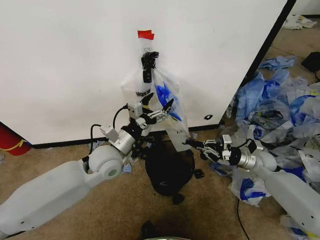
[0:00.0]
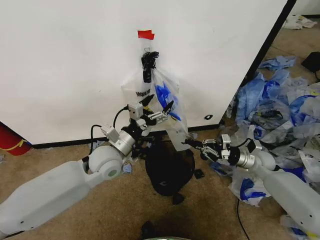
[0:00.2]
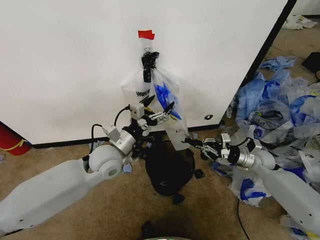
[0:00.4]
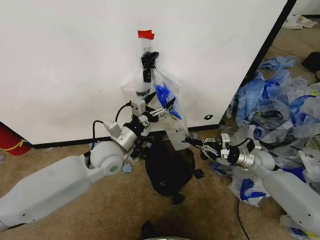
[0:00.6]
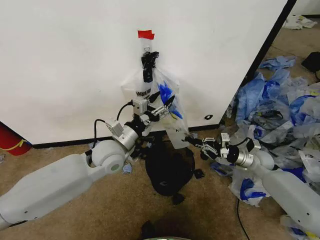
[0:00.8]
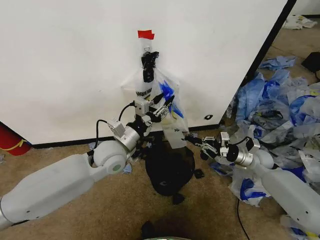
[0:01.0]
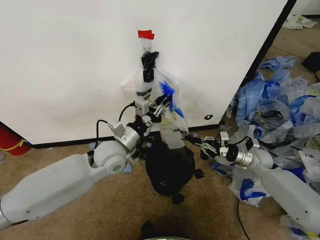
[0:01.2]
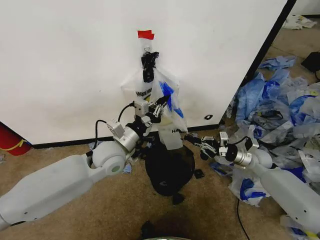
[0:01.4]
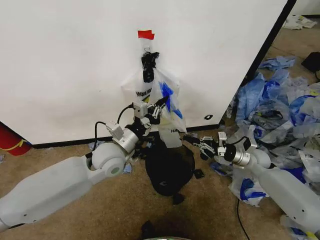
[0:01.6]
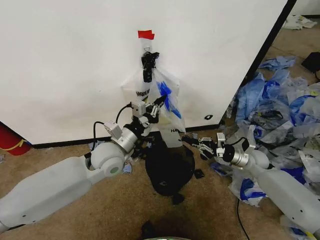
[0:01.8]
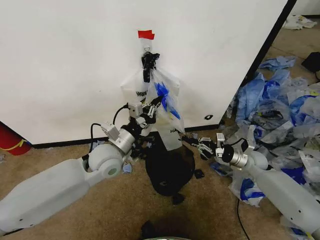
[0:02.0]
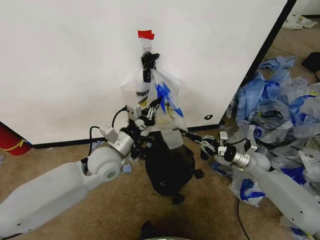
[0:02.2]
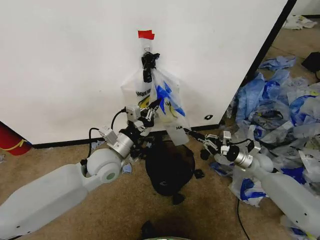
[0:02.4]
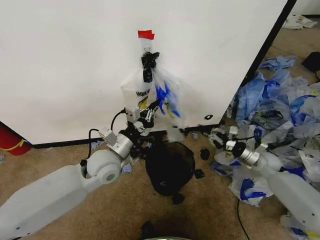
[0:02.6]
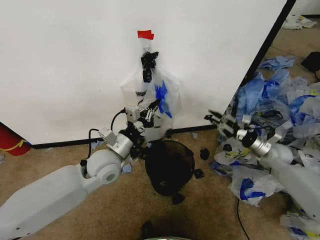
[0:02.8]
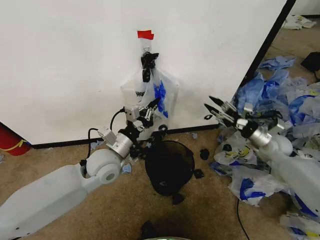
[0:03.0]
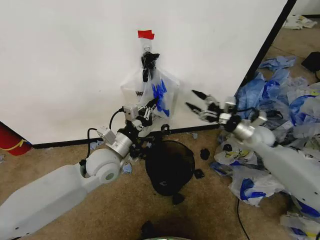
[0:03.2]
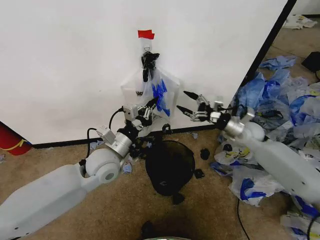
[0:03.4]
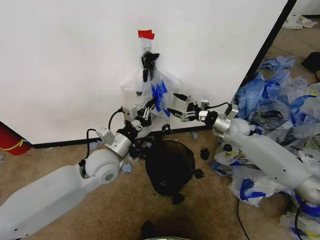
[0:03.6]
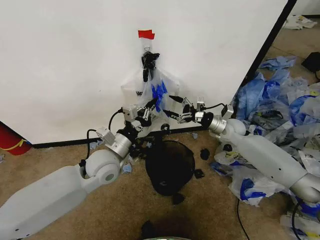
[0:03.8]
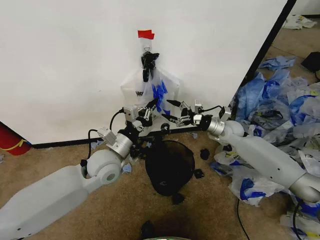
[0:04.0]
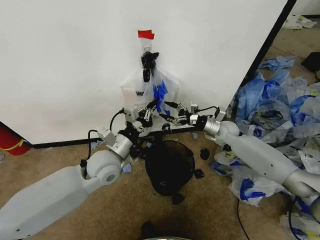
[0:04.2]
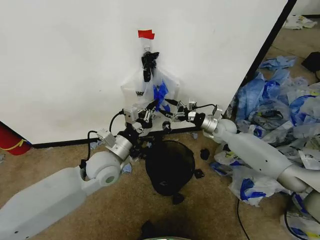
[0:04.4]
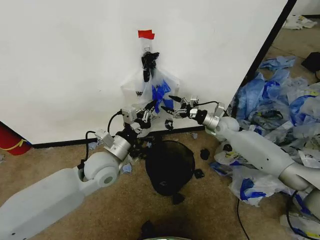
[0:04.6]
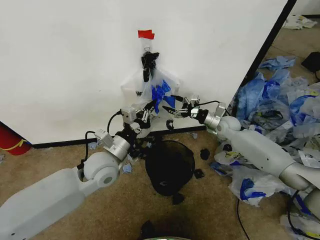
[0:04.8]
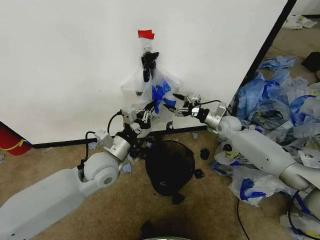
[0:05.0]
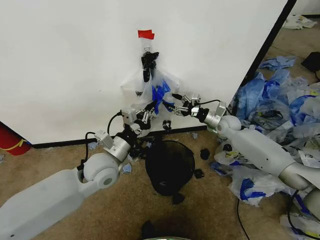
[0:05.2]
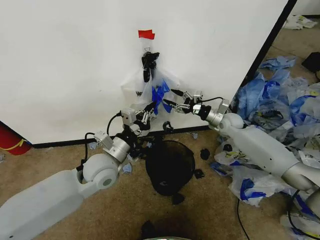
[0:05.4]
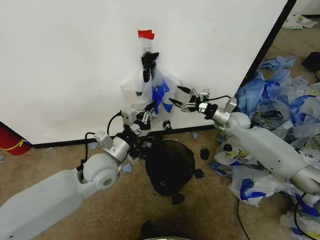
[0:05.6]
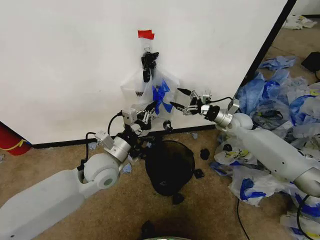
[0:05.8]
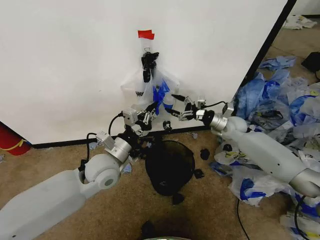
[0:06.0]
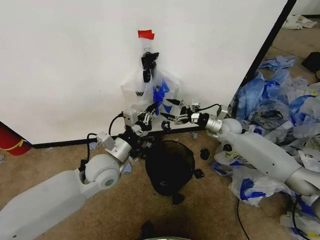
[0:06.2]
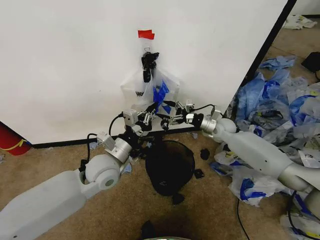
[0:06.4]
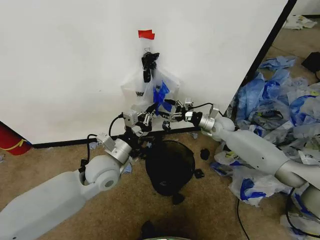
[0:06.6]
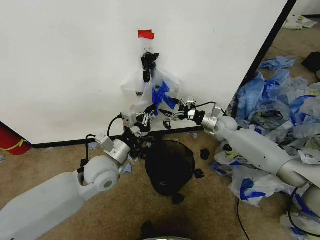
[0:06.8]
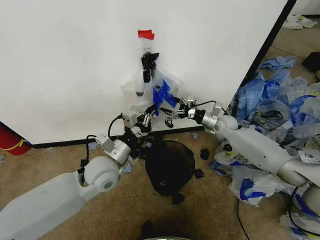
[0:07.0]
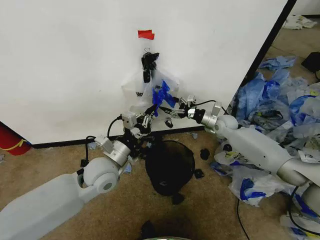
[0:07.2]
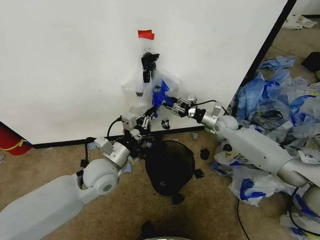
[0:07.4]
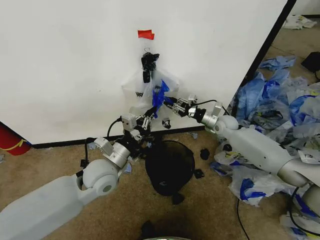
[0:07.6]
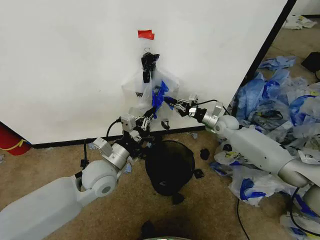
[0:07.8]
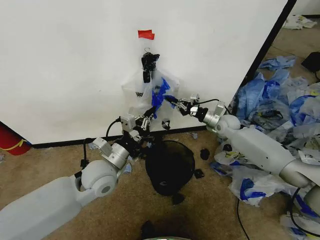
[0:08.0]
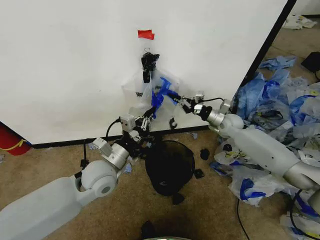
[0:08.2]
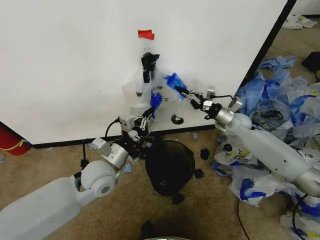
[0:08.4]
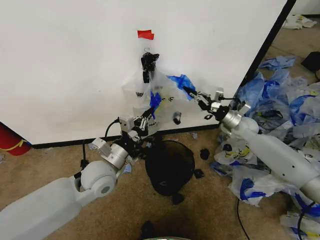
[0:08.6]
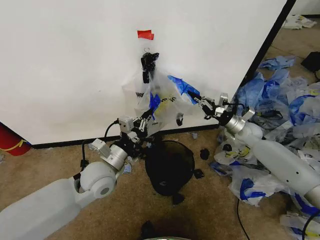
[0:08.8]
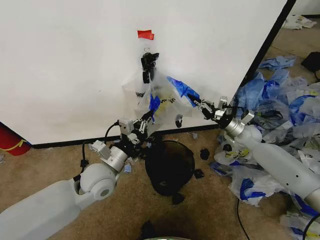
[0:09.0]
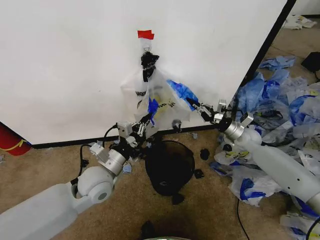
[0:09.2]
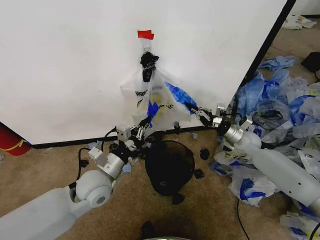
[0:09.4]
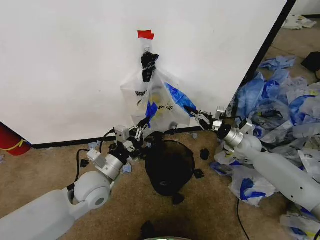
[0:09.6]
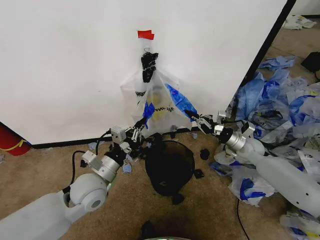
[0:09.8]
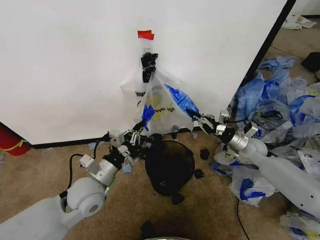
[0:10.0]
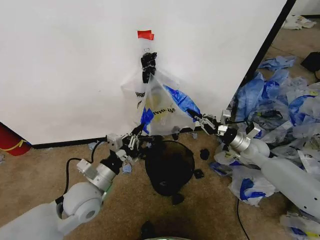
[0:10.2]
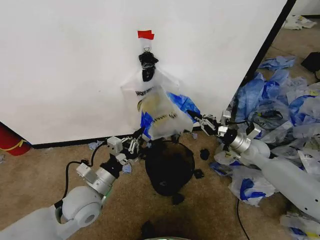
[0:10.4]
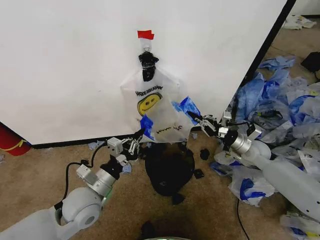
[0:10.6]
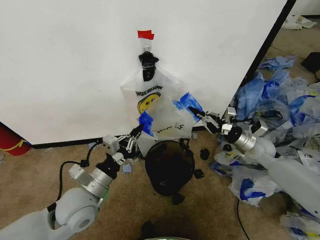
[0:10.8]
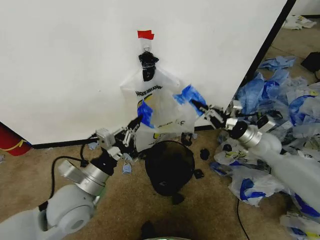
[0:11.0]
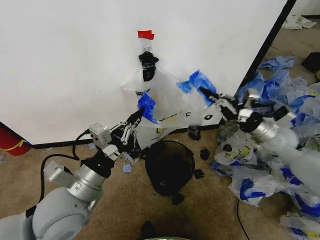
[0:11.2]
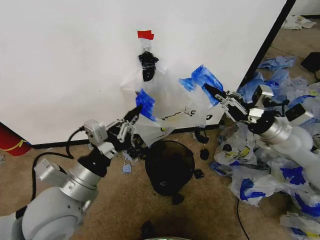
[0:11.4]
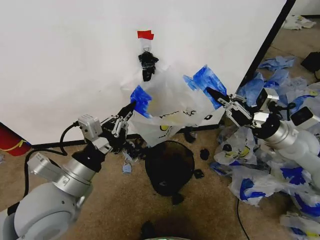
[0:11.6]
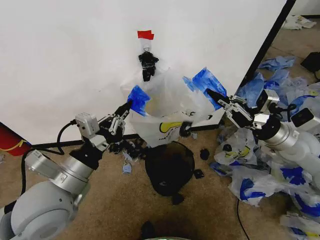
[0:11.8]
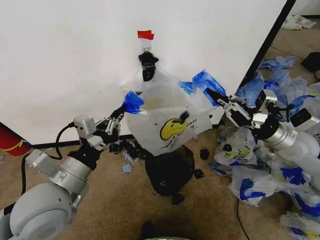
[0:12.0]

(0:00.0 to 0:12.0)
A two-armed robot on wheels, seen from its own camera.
Task of the whole recording: Pick up the garbage bag from the wall and place it over the trash bin.
0:00.0 - 0:01.6: The left gripper closes.
0:01.6 - 0:03.0: The right gripper travels upward by some 10 cm, and opens up.
0:03.0 - 0:04.4: The right gripper travels to the left and forward by approximately 15 cm, and opens.
0:04.4 - 0:06.0: There are only small adjustments of the grippers.
0:06.0 - 0:07.6: The right gripper closes.
0:07.6 - 0:09.0: The right gripper goes some 10 cm to the right and backward.
0:09.0 - 0:10.4: The grippers both shift backward by roughly 5 cm.
0:10.4 - 0:12.0: Both grippers travel together upward and backward, approximately 15 cm.

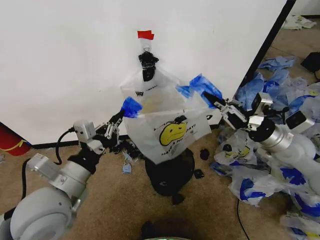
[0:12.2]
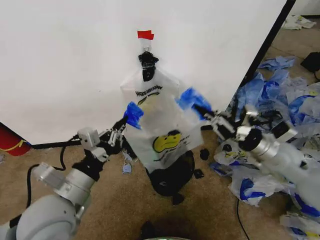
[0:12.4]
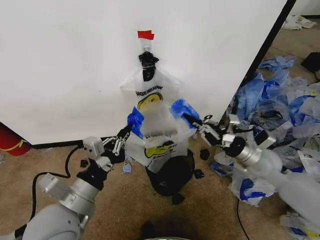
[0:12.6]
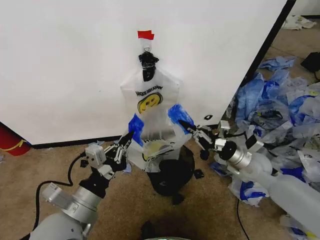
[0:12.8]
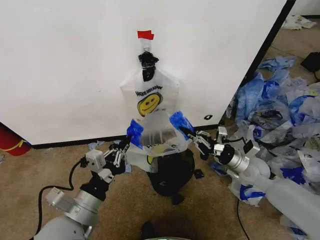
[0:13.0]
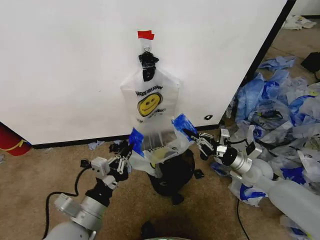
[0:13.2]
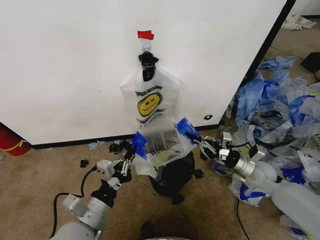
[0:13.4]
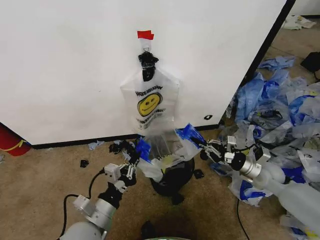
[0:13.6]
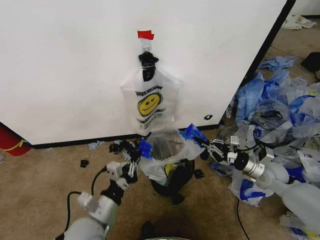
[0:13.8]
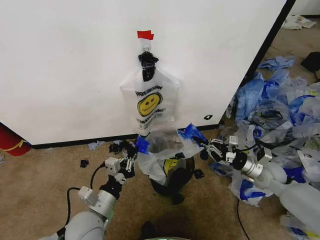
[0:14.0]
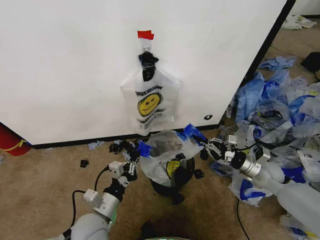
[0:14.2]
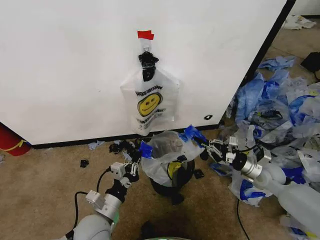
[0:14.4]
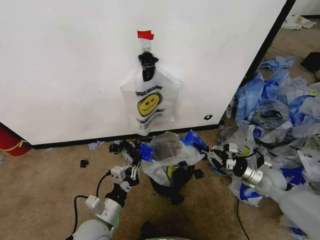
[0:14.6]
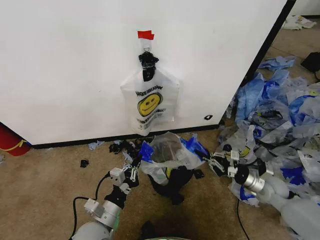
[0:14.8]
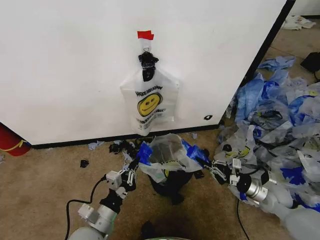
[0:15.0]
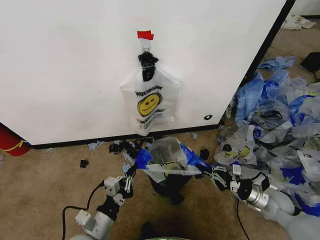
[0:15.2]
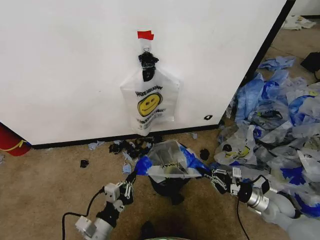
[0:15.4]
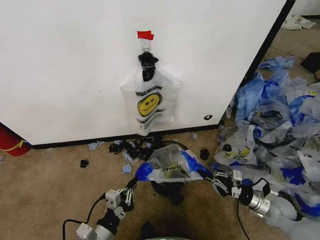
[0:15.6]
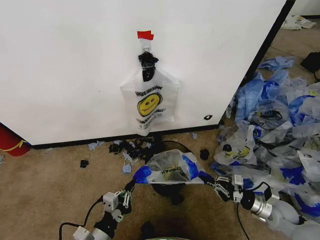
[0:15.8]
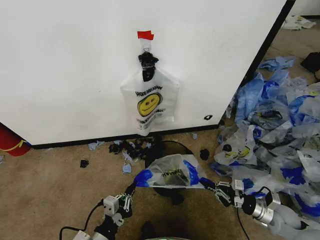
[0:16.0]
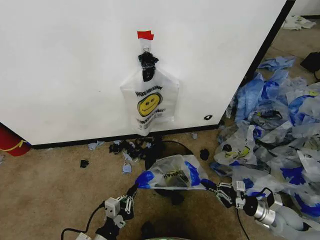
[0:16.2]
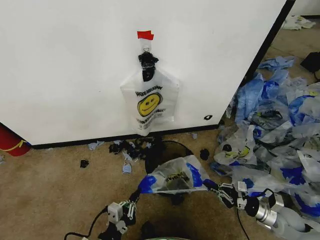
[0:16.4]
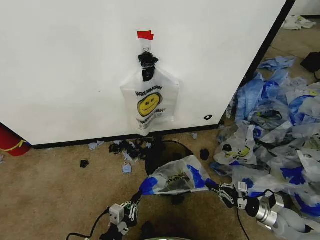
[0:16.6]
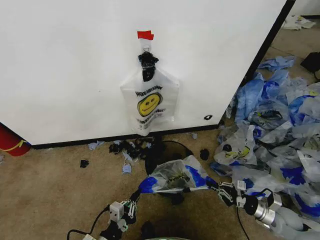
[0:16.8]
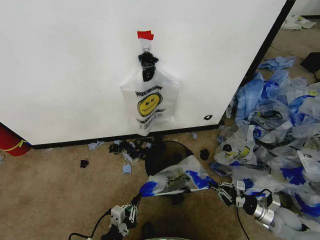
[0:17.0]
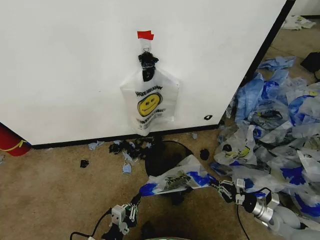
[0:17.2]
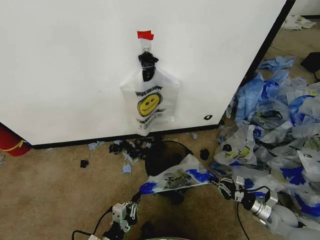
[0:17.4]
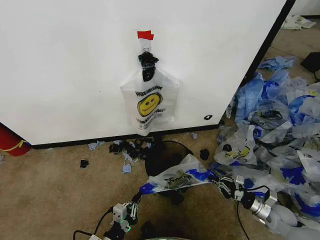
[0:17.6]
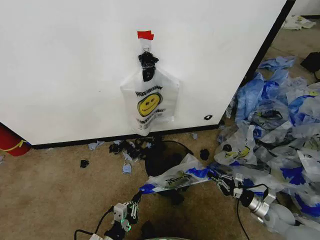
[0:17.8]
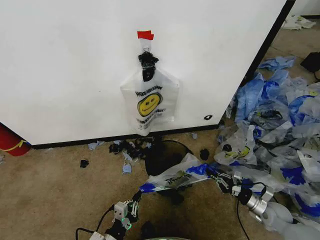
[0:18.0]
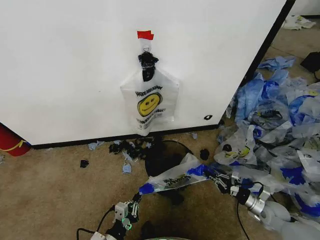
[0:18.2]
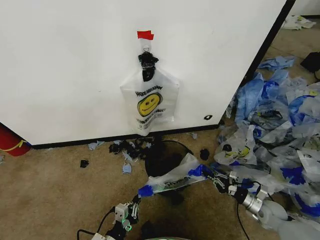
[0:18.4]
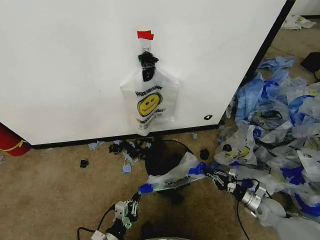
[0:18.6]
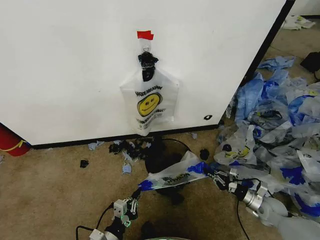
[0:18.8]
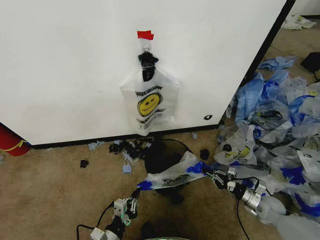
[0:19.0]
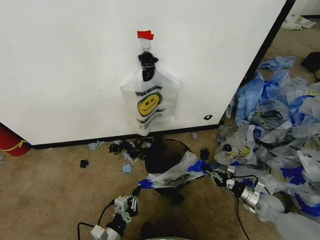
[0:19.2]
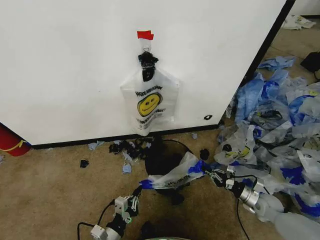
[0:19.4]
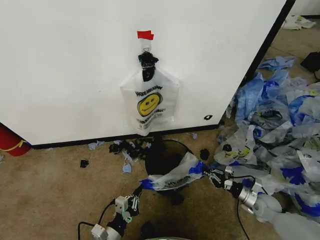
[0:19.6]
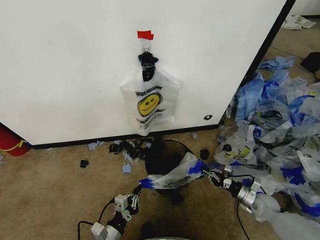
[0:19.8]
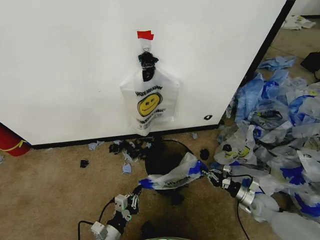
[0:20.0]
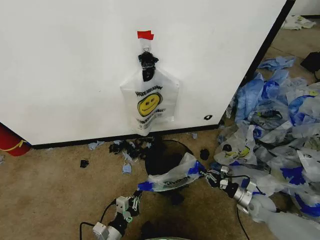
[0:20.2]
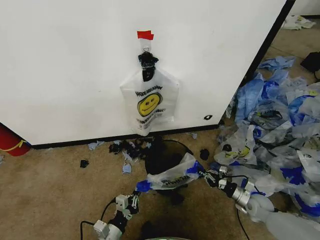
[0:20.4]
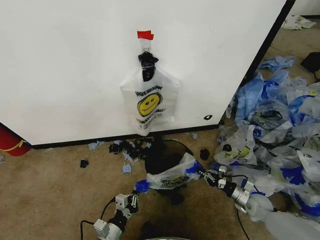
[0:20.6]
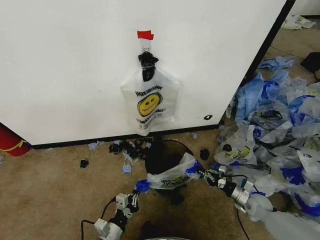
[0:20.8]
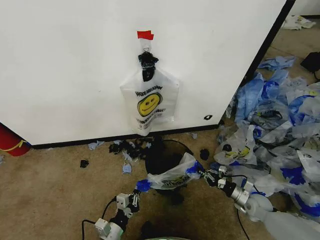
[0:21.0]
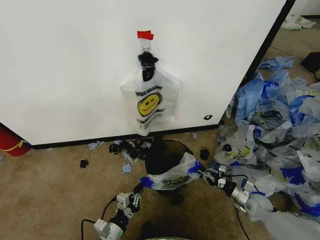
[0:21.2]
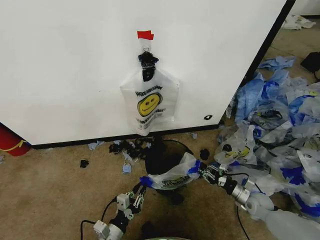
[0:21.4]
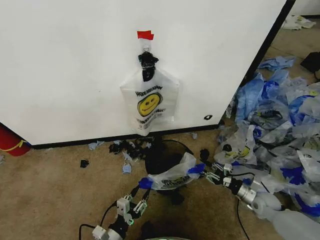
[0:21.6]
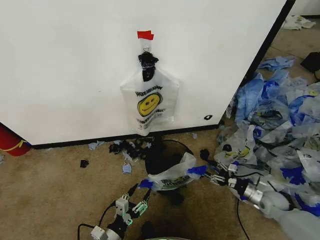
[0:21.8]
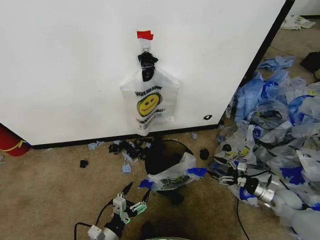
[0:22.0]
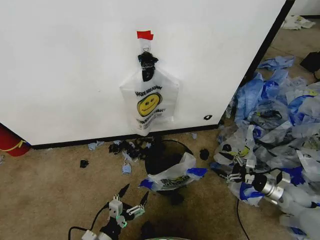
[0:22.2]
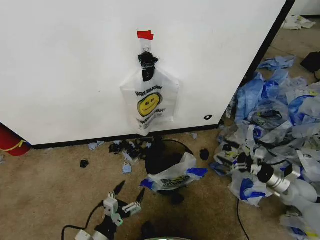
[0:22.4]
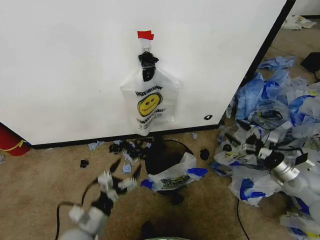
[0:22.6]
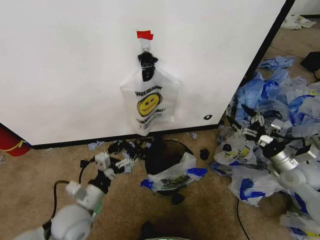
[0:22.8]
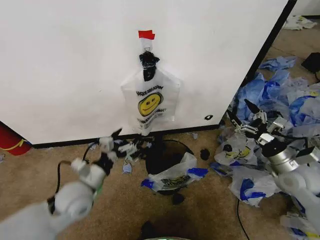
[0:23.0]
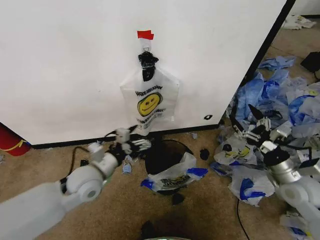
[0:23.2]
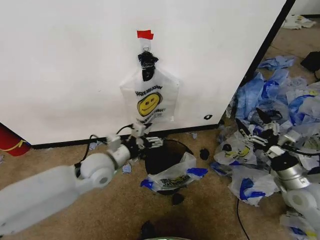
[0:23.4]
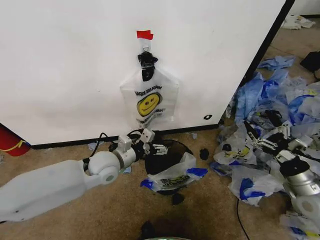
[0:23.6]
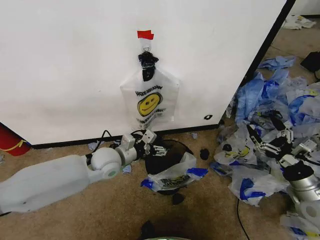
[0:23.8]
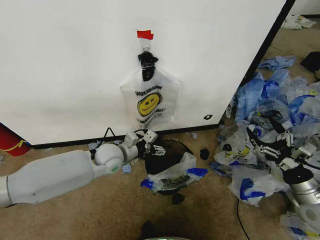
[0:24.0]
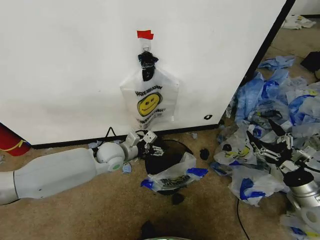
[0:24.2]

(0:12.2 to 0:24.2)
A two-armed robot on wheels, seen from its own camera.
Task of the whole recording: Pick up the garbage bag from the wall and place it over the trash bin.
0:12.2 - 0:13.8: The two grippers go roughly 15 cm downward.
0:13.8 - 0:15.2: The right gripper moves backward and downward, some 10 cm.
0:15.2 - 0:16.6: The left gripper heads backward, covering approximately 5 cm, while the right gripper changes place by some 10 cm.
0:16.6 - 0:18.2: The left gripper changes place by about 5 cm. The right gripper changes place by about 5 cm.
0:18.2 - 0:21.2: The grippers make only small movements.
0:21.2 - 0:22.6: The right gripper heads upward and to the right, covering about 20 cm, and opens its fingers. The left gripper is displaced upward by some 10 cm, and opens.
0:22.6 - 0:24.2: The right gripper shifts about 10 cm backward. Meanwhile the left gripper goes about 25 cm forward.
